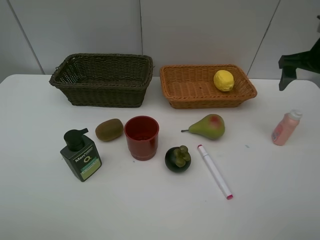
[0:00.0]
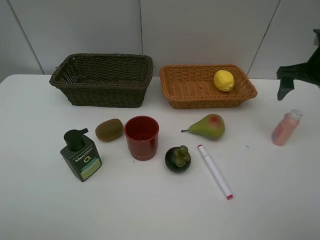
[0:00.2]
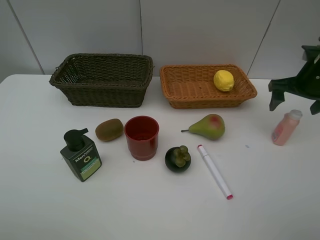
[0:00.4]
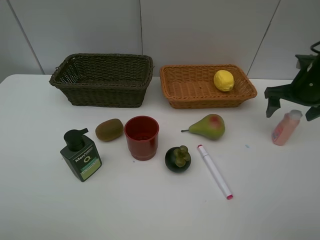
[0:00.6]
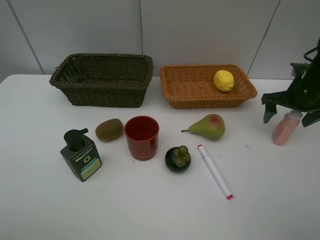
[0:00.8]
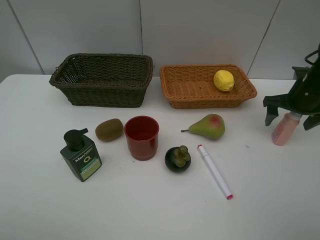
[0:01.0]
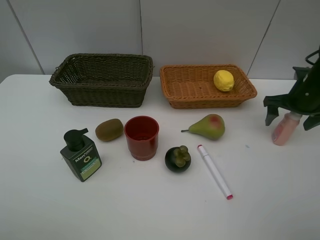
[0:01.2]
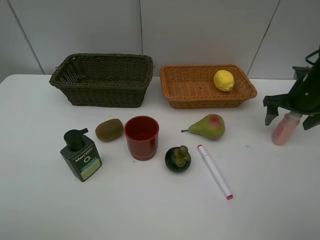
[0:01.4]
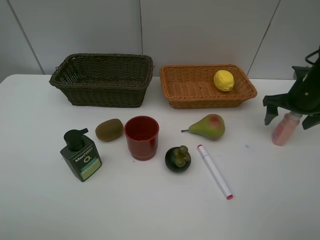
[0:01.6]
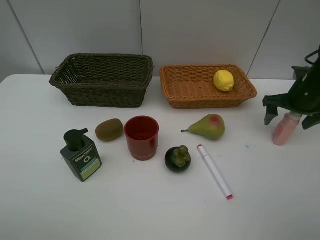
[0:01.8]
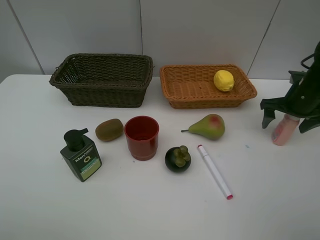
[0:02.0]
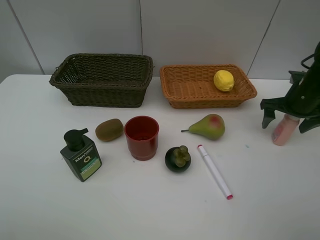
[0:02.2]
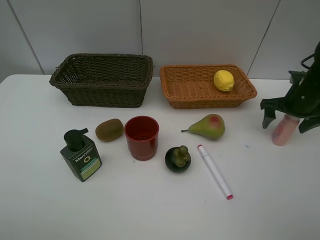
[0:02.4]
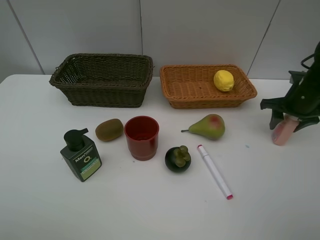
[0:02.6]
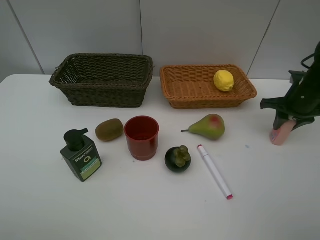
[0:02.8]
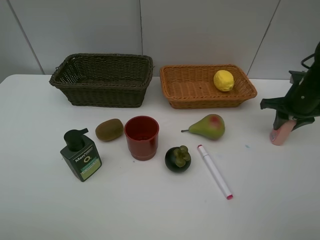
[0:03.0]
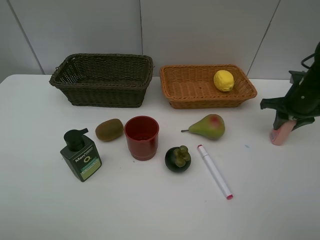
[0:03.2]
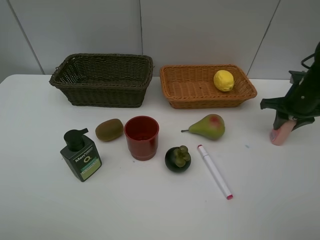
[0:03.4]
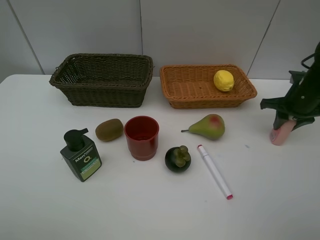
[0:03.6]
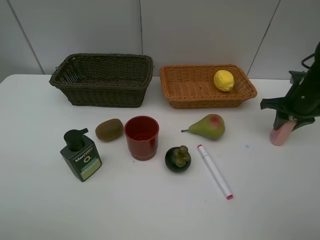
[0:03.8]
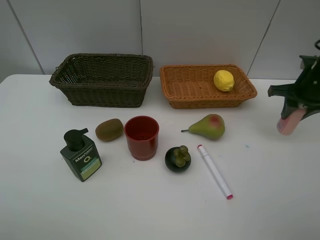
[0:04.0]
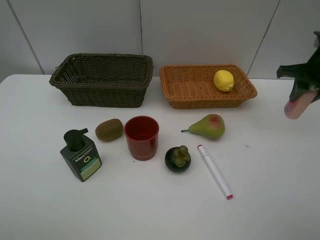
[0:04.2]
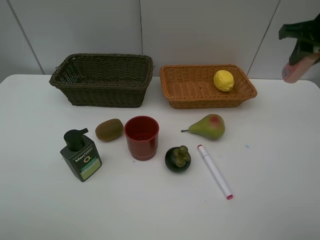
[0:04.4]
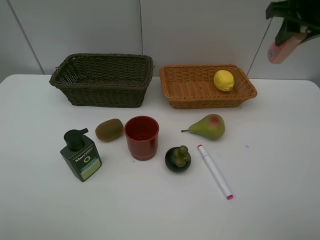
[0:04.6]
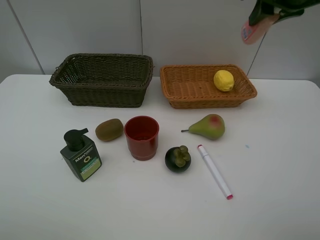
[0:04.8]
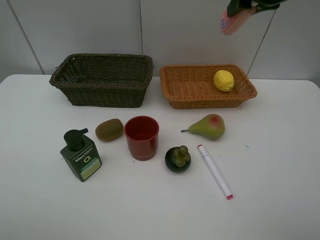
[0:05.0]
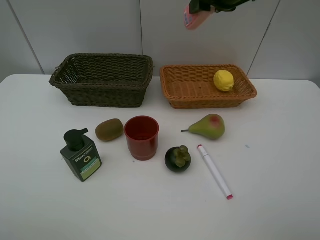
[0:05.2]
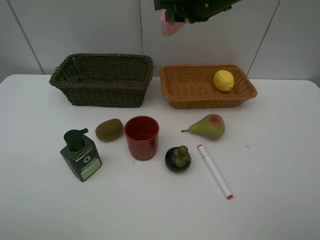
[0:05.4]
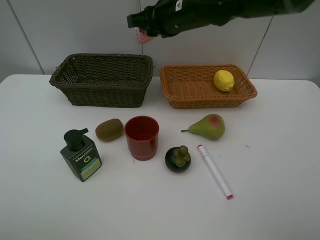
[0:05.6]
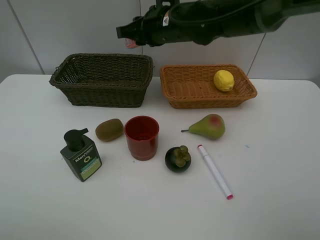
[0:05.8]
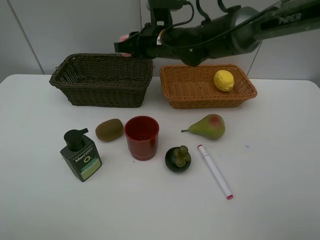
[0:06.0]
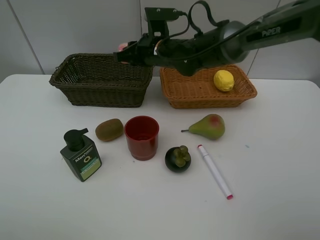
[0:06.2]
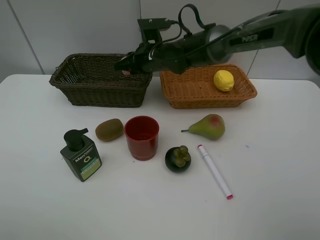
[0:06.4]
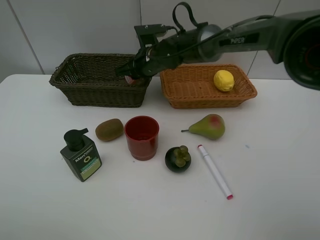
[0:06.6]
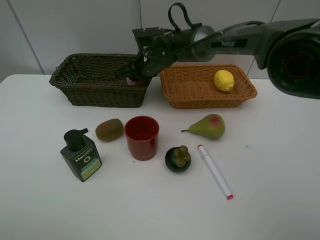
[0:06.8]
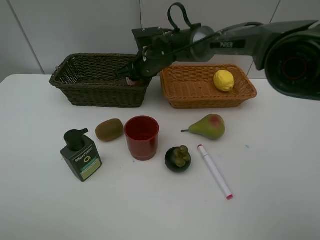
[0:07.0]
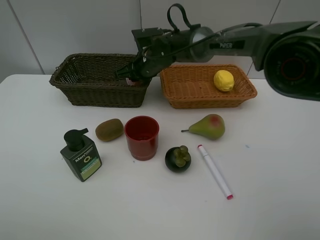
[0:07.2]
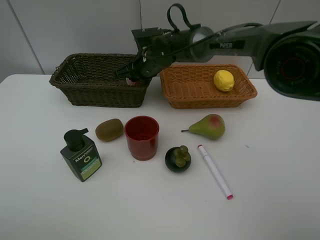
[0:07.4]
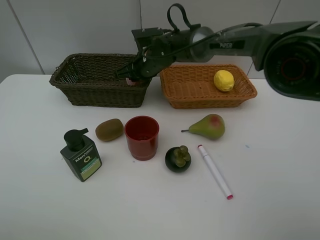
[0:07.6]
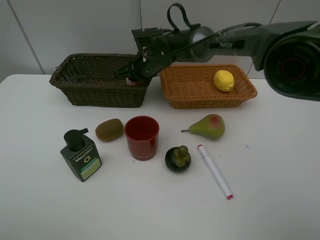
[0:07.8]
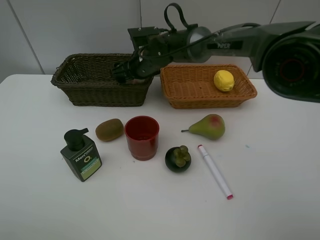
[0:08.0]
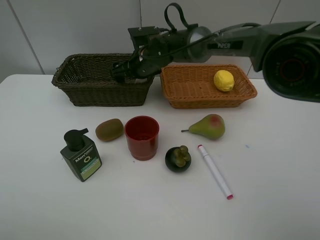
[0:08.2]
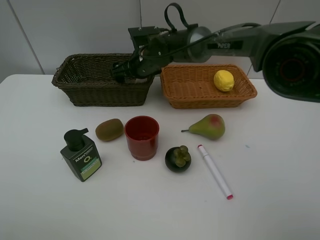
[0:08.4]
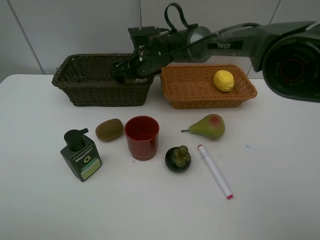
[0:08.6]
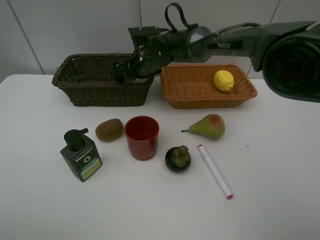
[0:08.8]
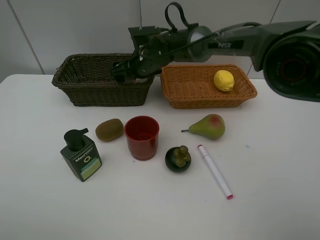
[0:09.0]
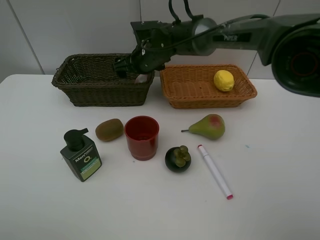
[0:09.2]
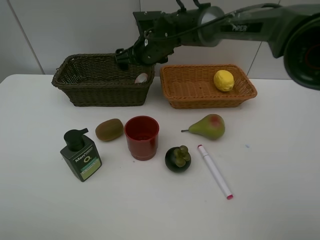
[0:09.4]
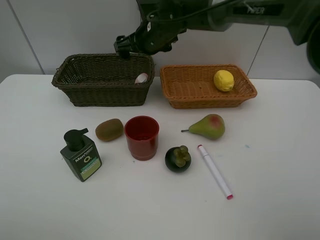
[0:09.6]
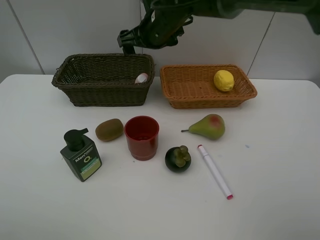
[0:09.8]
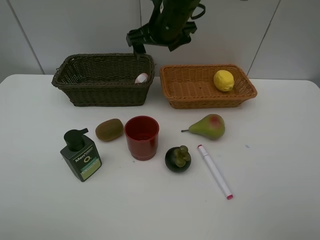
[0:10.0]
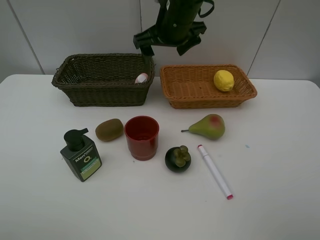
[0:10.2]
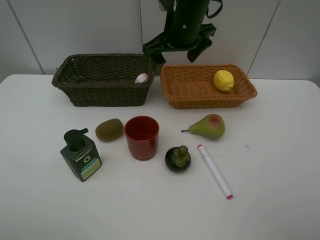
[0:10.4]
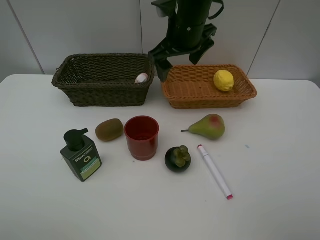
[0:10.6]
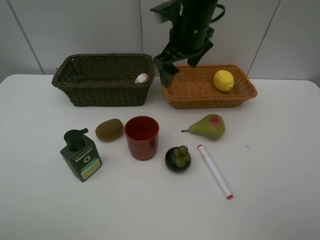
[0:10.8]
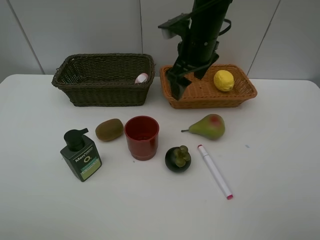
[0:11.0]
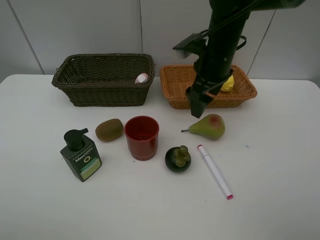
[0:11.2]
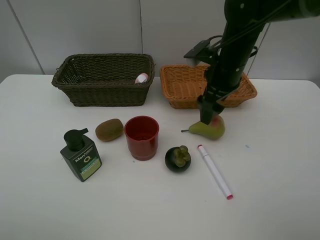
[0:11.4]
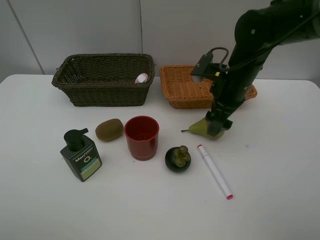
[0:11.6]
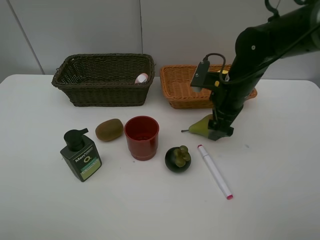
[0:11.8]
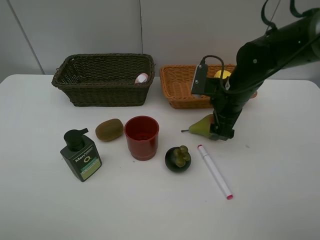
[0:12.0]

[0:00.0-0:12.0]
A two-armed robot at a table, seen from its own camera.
Task of the whole recording: Place multiple objects separately in different baskets.
Step, 0:00.0 to 0:04.0: Pick up the laundry detergent with right gripper.
Step, 0:04.2 to 0:09.4: Place the laundry detergent in the dark basket with right gripper.
0:00.0 to 0:01.6: The right gripper moves downward, about 10 cm.
0:01.6 to 0:03.0: The right gripper closes its fingers.
0:03.0 to 0:04.4: The right gripper is displaced upward by approximately 15 cm.
0:04.4 to 0:06.0: The right gripper heads to the left, covering about 30 cm.
0:06.0 to 0:07.6: The right gripper goes approximately 5 cm downward.
0:07.6 to 0:09.0: The right gripper opens its fingers.
0:09.0 to 0:10.4: The right gripper moves upward, to the right and backward, about 15 cm.
0:10.4 to 0:12.0: The right gripper heads downward, to the right and backward, covering about 15 cm.

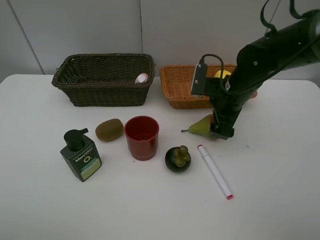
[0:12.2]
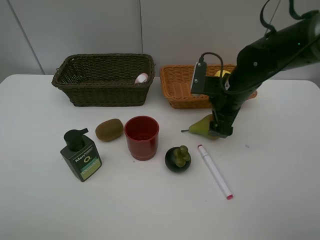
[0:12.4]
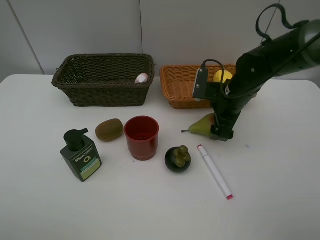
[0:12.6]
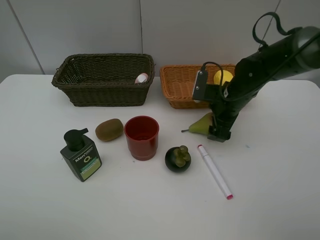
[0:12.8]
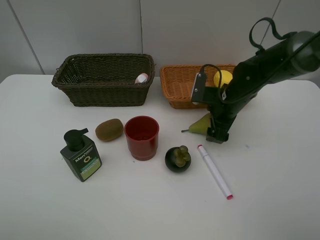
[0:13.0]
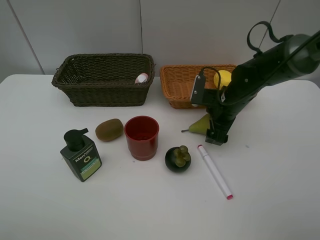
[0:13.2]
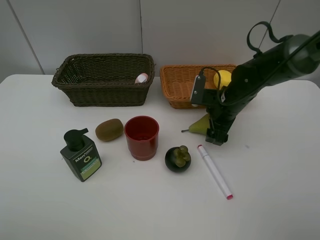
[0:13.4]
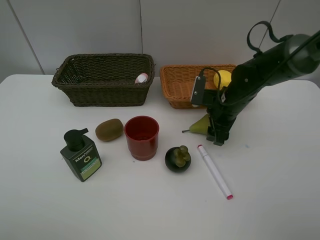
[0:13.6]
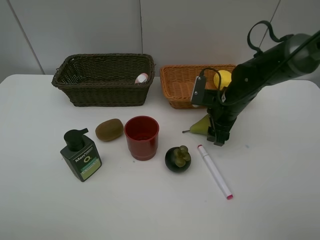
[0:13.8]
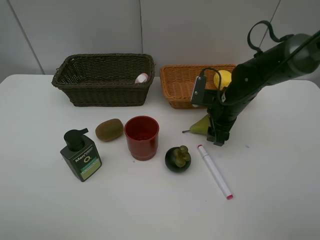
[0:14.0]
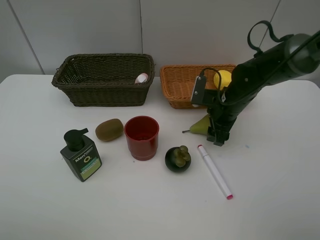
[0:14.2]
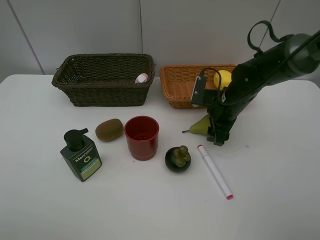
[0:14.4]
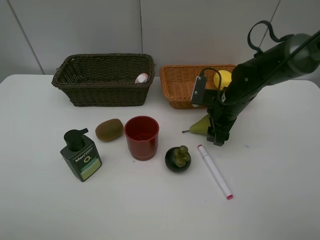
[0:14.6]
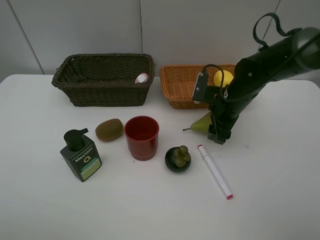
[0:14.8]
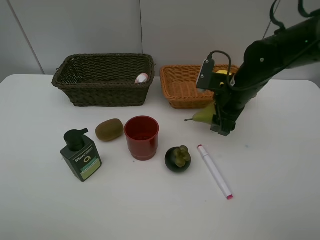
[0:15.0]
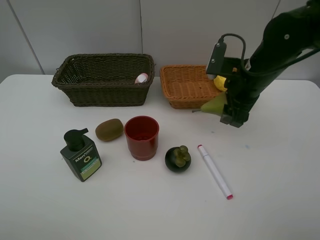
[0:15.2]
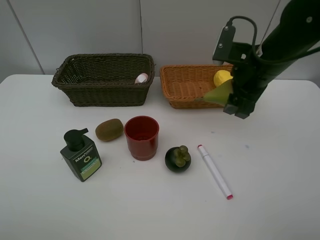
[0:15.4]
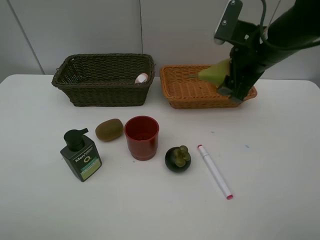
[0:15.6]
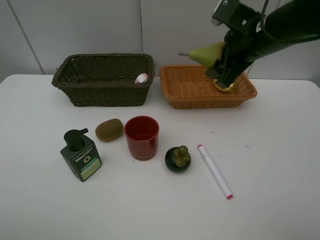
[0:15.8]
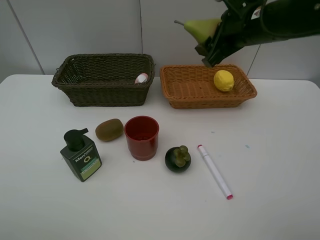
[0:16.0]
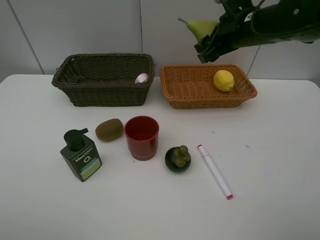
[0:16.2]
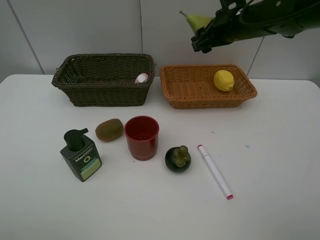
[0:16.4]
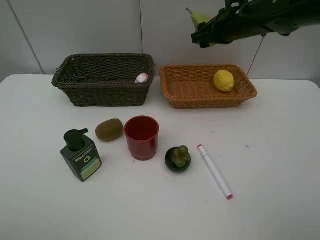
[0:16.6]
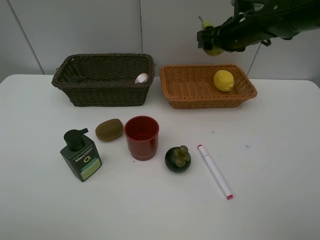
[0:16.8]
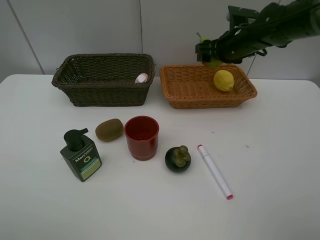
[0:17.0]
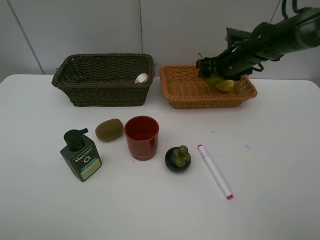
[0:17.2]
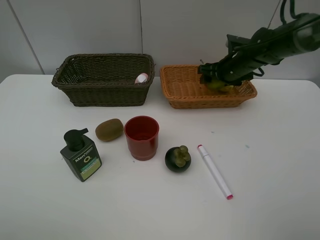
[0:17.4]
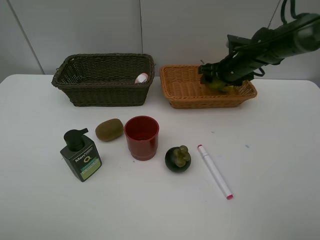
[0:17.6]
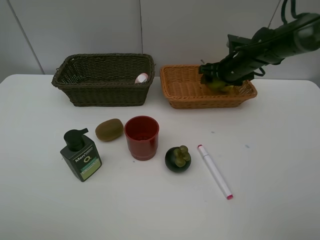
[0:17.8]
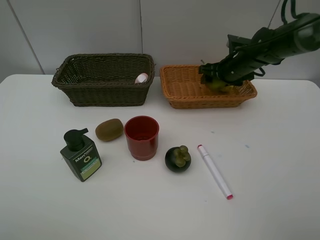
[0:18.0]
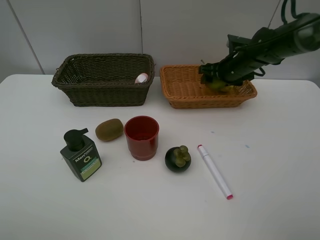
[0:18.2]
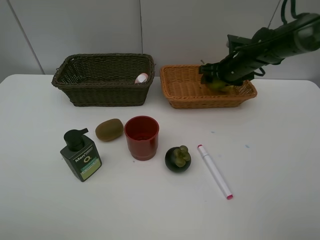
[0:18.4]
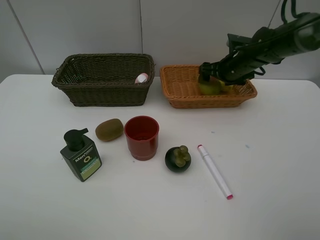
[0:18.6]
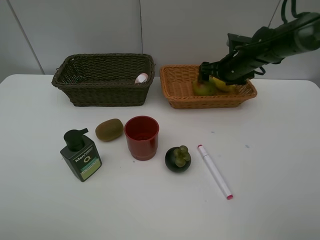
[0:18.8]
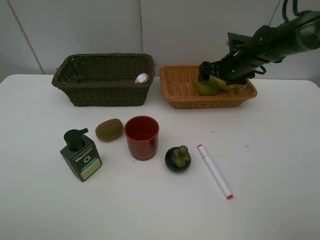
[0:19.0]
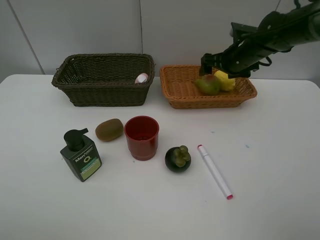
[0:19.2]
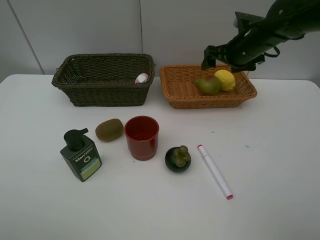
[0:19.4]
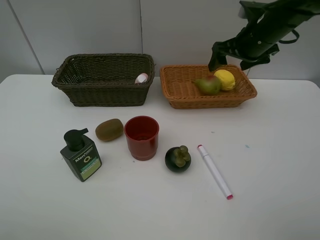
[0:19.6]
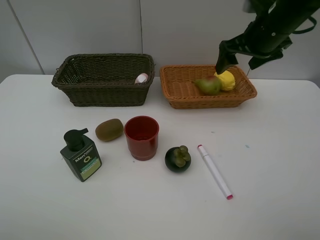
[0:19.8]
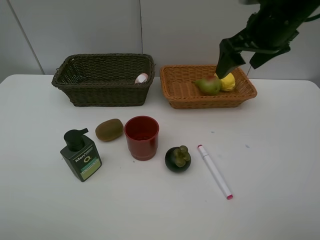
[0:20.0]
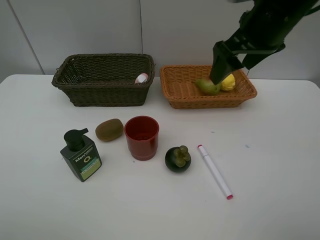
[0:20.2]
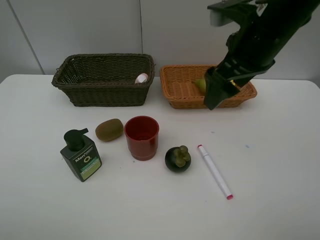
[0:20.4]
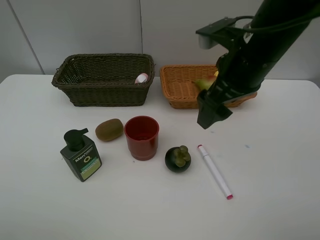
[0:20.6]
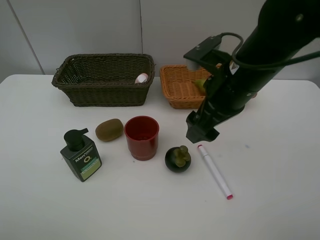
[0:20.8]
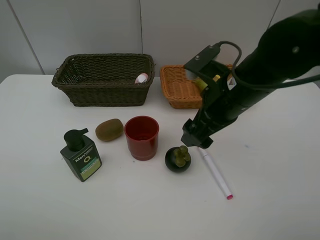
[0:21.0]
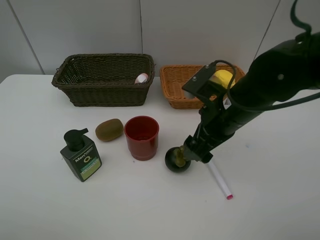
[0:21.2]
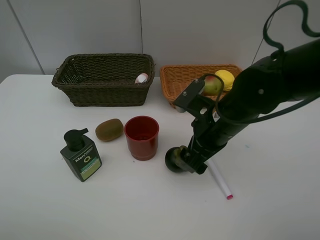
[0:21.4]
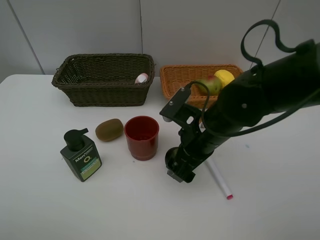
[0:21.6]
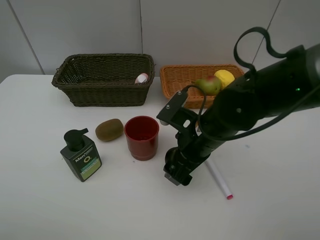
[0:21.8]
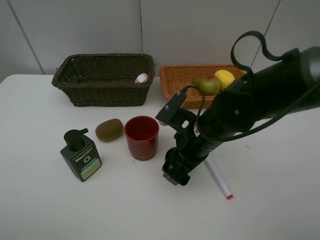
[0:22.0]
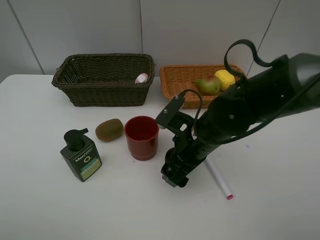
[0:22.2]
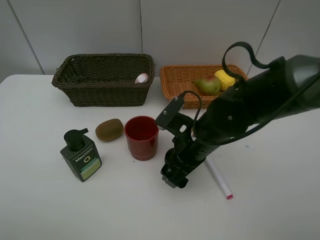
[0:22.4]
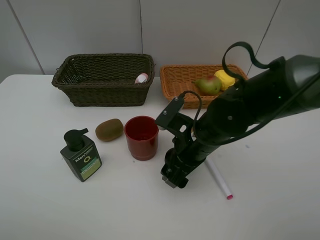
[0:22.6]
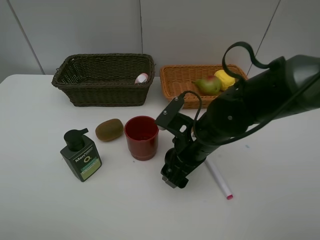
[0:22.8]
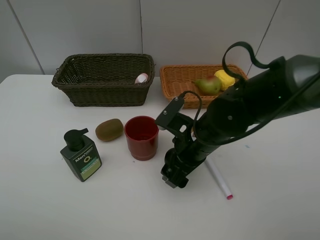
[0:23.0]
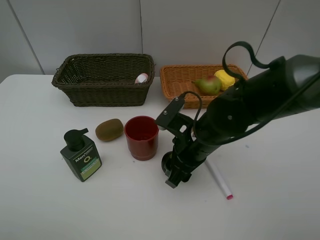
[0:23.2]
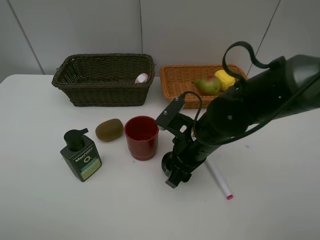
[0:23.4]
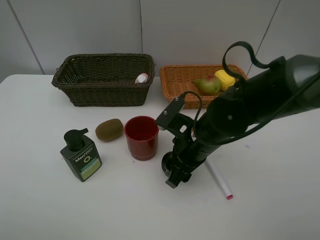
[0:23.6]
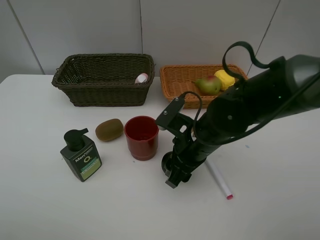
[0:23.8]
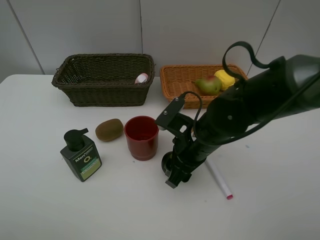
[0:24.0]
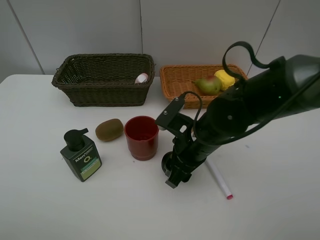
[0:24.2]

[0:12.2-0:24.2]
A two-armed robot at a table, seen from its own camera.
Task of the whole recording: Place multiple objects separately in different baskets.
Step, 0:12.2 to 0:15.0: Pick up the pear with right gripper.
Step, 0:15.2 to 0:19.4: Place the pear in the light basket with right gripper.
0:12.2 to 0:13.8: The grippers make only small movements.
0:13.8 to 0:15.2: The right gripper moves upward, approximately 10 cm.
0:15.2 to 0:16.6: The right gripper goes roughly 10 cm forward.
0:16.6 to 0:18.2: The right gripper heads downward, covering some 10 cm.
0:18.2 to 0:19.8: The right gripper travels upward and backward by some 15 cm.
0:19.8 to 0:21.2: The right gripper heads backward, downward and to the left, covering approximately 20 cm.
0:21.2 to 0:22.6: The right gripper is displaced downward by approximately 5 cm.
